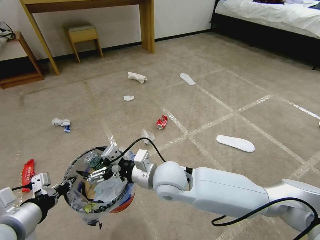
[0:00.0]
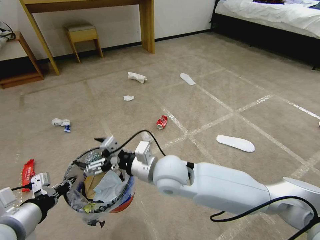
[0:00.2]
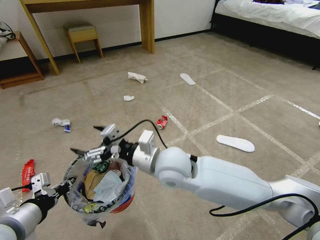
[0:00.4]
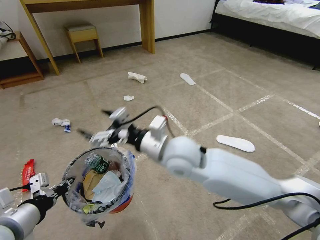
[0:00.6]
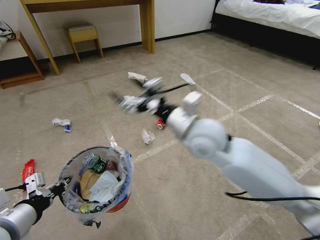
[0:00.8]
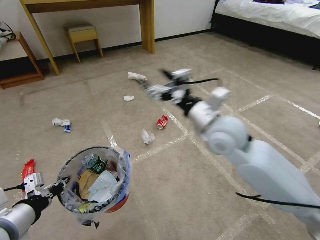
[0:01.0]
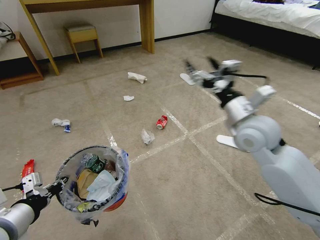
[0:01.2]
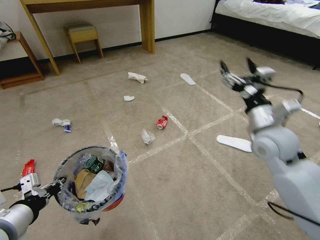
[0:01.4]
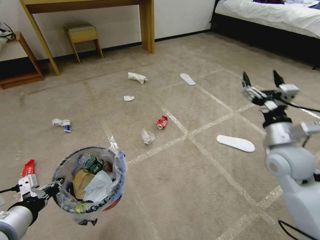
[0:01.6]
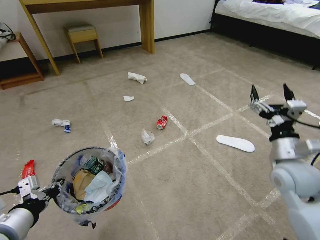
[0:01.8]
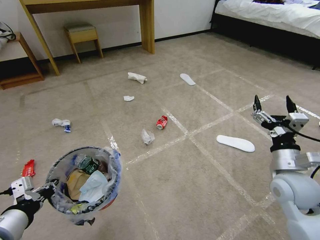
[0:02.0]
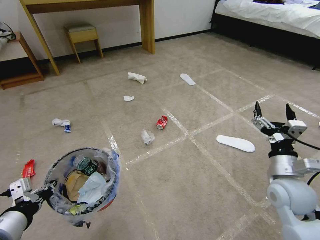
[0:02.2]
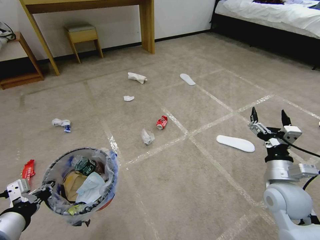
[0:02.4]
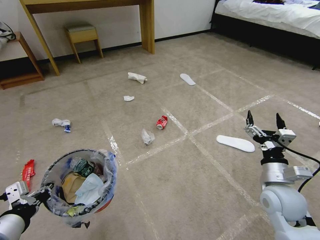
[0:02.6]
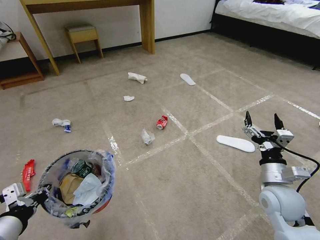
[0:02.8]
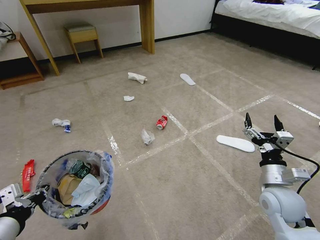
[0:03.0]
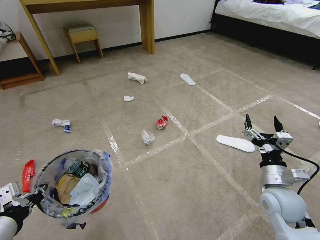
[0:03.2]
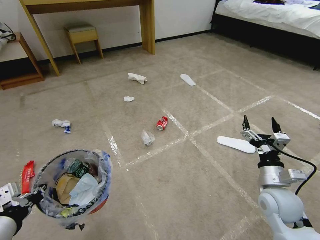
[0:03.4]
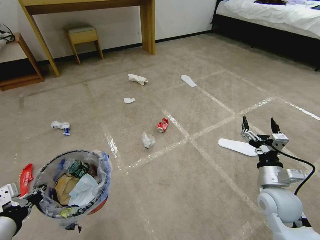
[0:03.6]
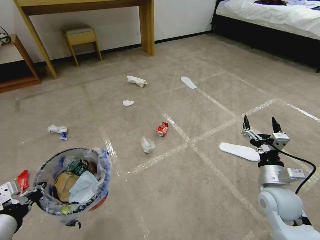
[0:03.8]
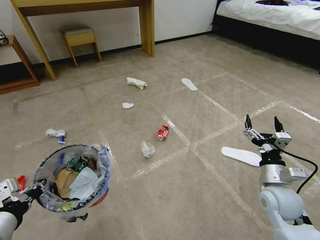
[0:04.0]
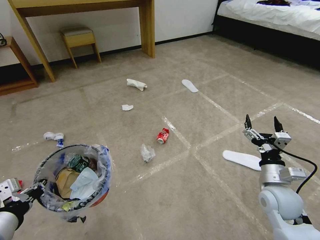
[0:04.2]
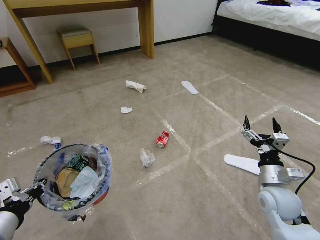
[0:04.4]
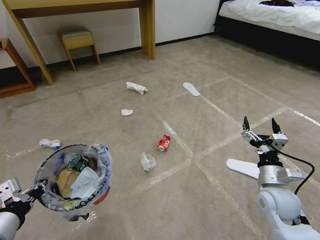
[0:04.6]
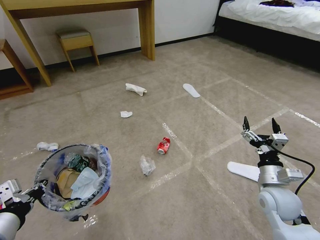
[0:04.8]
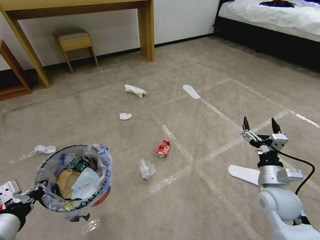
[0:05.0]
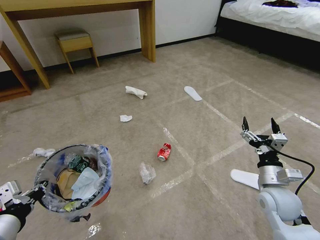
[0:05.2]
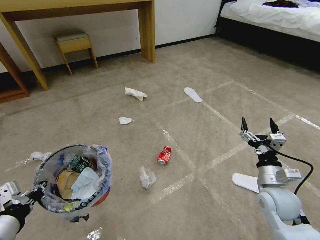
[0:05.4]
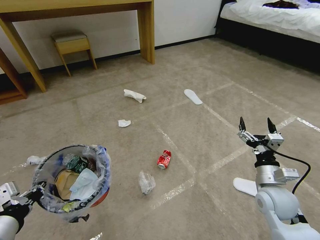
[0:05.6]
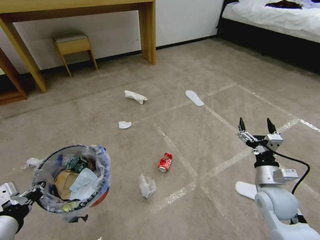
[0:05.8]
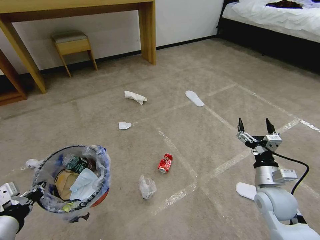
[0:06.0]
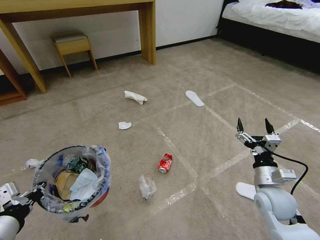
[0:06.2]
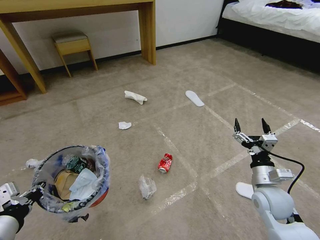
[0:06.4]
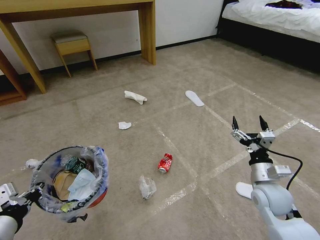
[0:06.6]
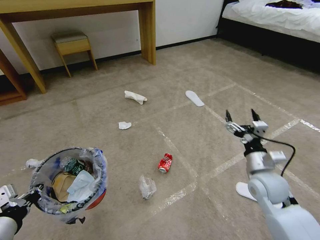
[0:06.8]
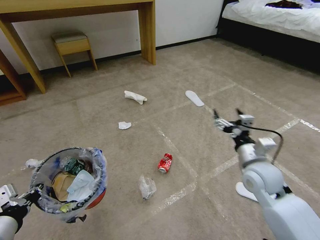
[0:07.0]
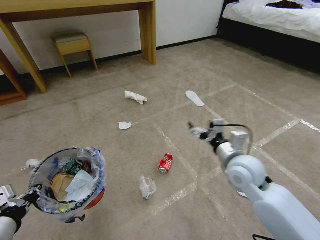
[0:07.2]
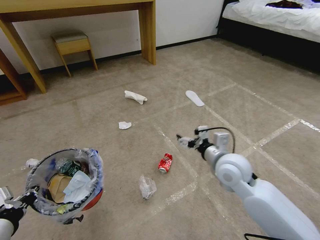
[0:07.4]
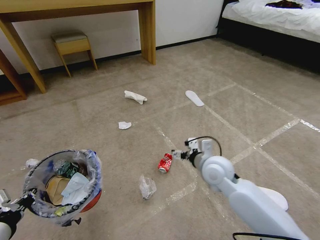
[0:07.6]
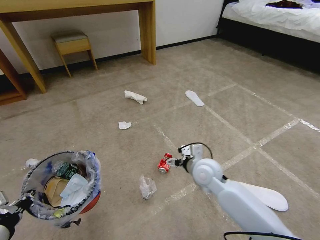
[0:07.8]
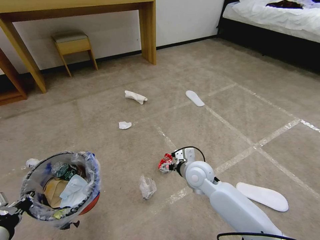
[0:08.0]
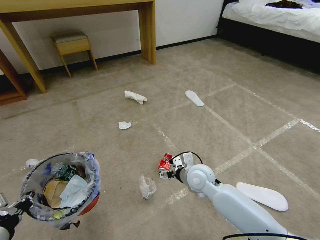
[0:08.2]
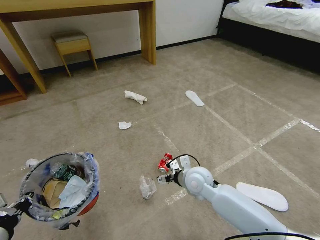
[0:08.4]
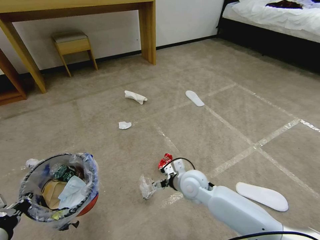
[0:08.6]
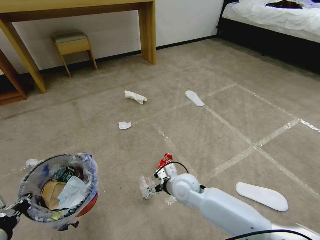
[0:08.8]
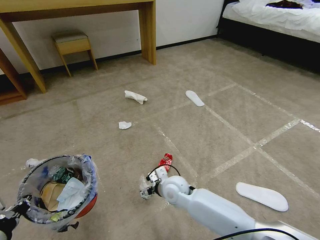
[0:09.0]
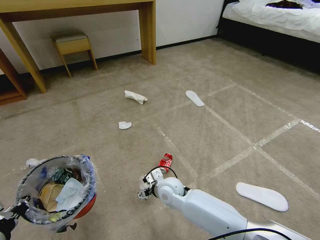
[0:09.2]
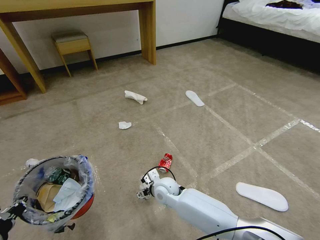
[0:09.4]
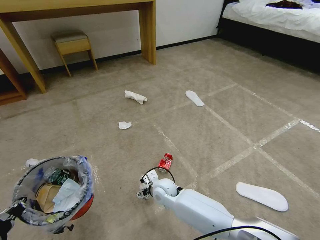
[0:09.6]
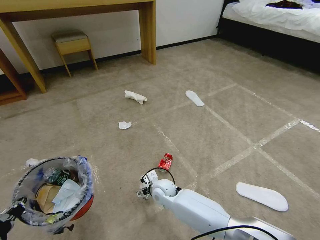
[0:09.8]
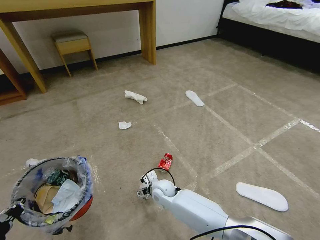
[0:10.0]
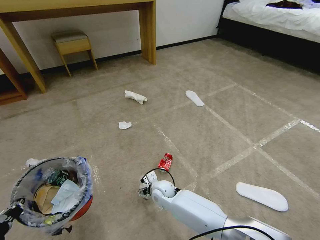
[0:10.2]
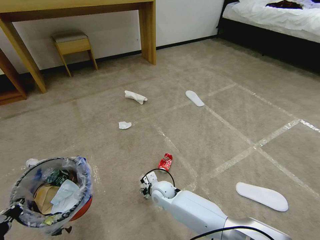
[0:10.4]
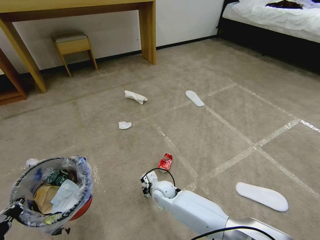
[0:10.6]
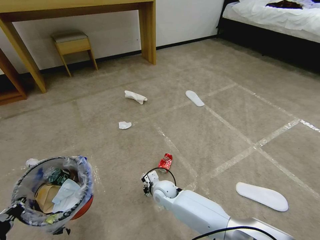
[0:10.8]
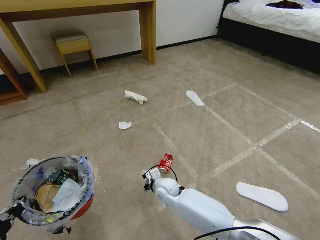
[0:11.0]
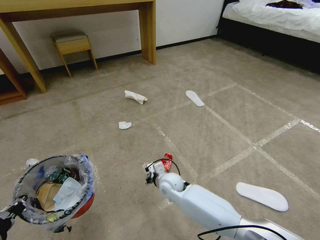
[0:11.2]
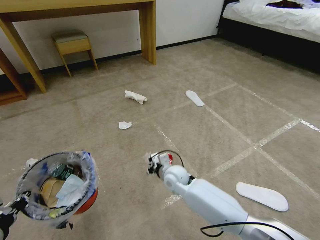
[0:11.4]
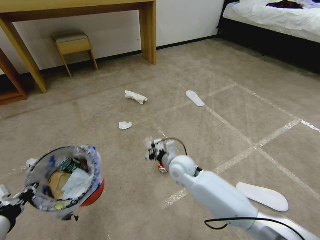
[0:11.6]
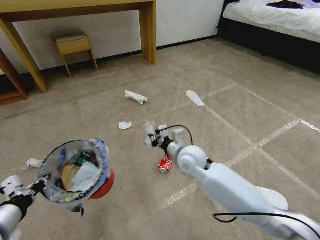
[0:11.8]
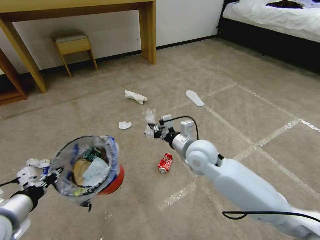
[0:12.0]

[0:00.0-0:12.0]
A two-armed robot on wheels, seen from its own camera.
Task of the whole recording: Pick up the trash bin and place the garbage on the floor into it.
0:00.0 to 0:01.6: The right gripper moves to the right, approximately 30 cm.
0:01.6 to 0:03.0: The right gripper heads downward and backward, covering roughly 15 cm.
0:06.0 to 0:07.6: The right gripper is displaced to the left and forward by about 15 cm.
0:07.6 to 0:09.0: The right gripper heads to the left and downward, covering about 20 cm.
0:09.0 to 0:10.4: The right gripper moves downward, about 10 cm, and closes its fingers.
0:10.4 to 0:12.0: The left gripper is displaced forward by roughly 10 cm; the right gripper moves upward and to the right, roughly 30 cm, and closes up.

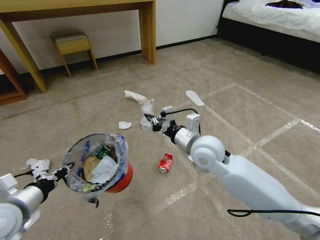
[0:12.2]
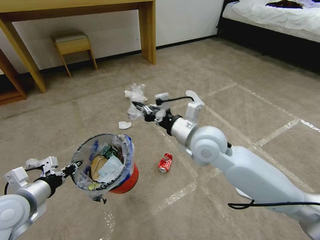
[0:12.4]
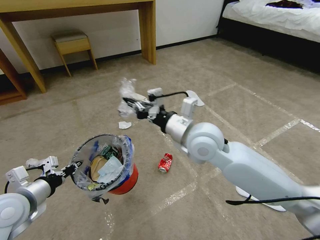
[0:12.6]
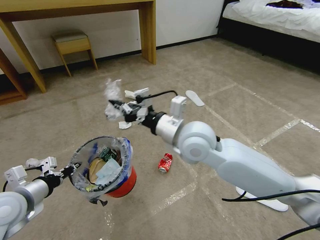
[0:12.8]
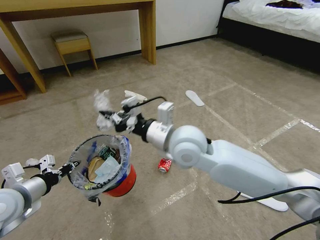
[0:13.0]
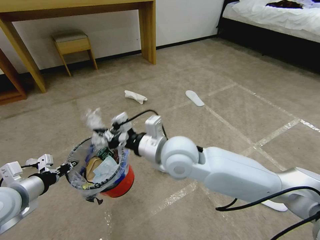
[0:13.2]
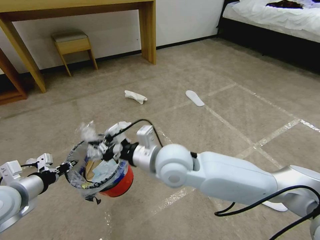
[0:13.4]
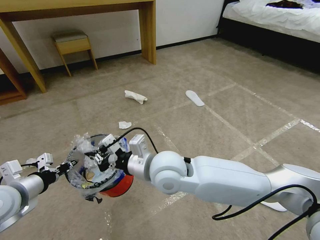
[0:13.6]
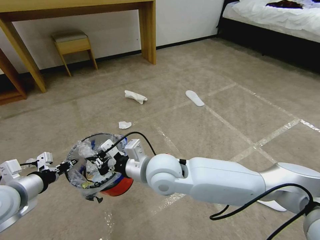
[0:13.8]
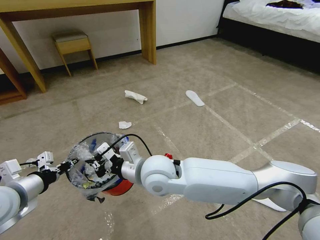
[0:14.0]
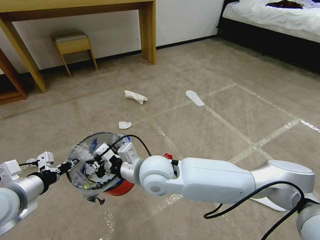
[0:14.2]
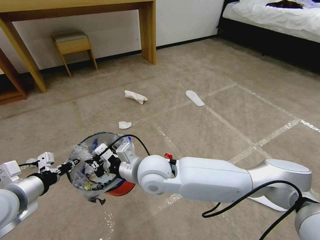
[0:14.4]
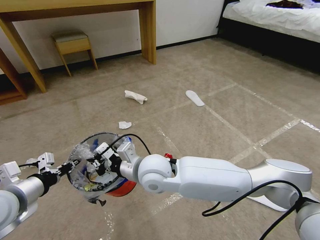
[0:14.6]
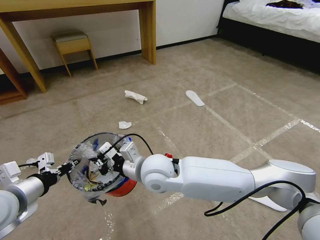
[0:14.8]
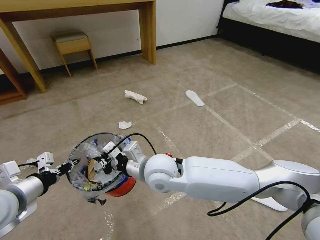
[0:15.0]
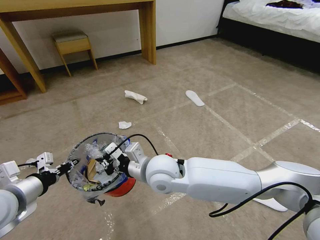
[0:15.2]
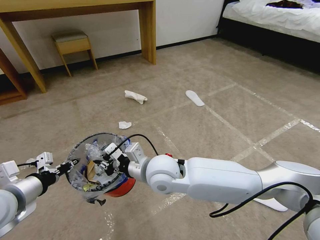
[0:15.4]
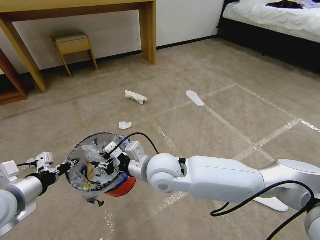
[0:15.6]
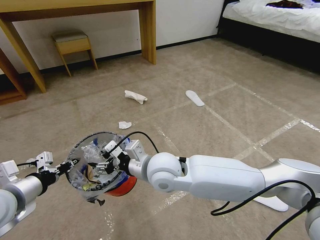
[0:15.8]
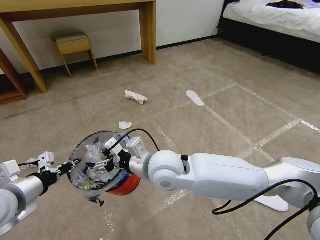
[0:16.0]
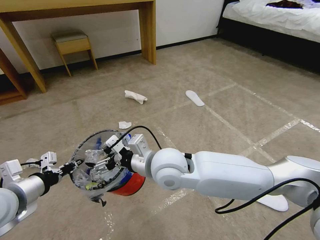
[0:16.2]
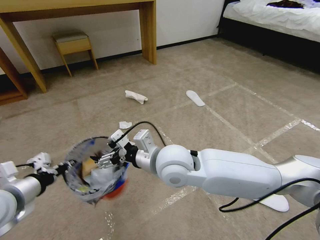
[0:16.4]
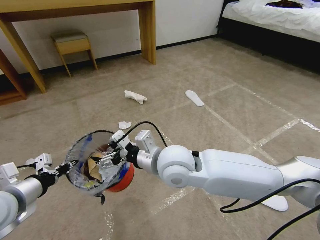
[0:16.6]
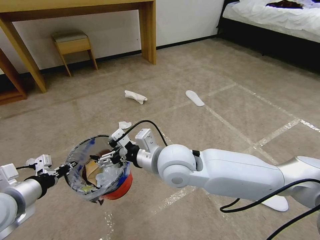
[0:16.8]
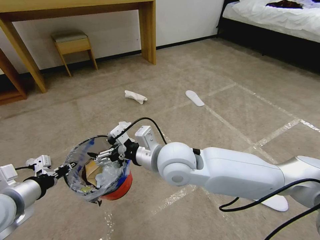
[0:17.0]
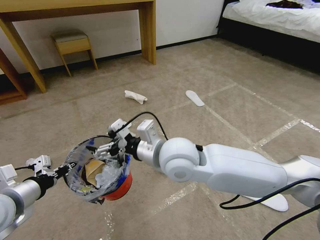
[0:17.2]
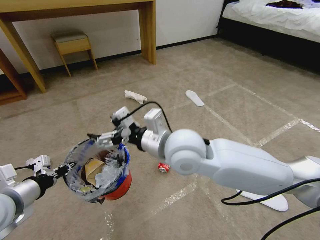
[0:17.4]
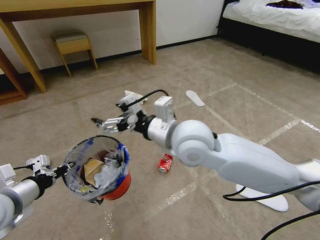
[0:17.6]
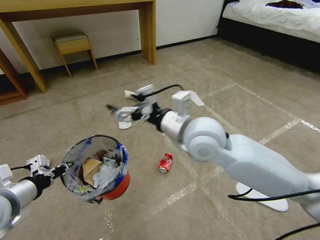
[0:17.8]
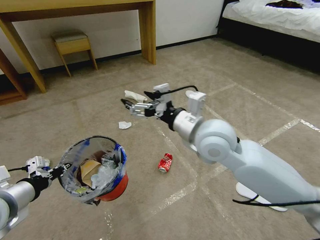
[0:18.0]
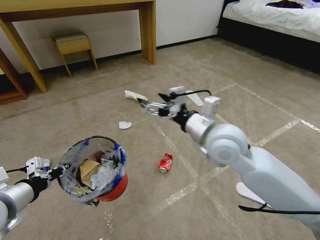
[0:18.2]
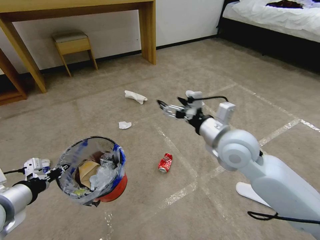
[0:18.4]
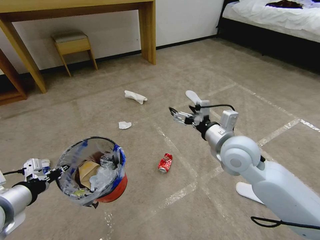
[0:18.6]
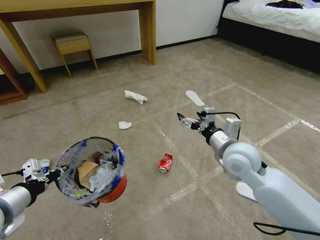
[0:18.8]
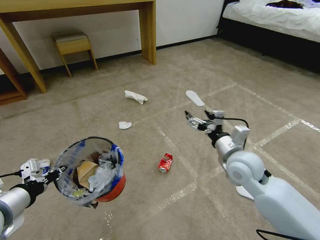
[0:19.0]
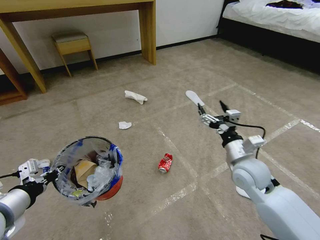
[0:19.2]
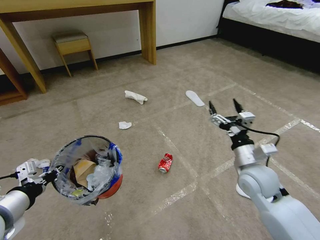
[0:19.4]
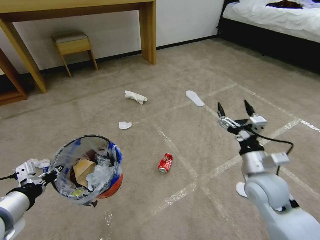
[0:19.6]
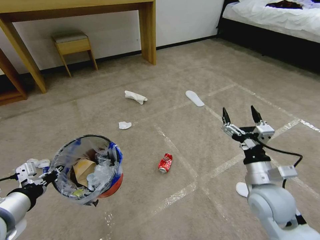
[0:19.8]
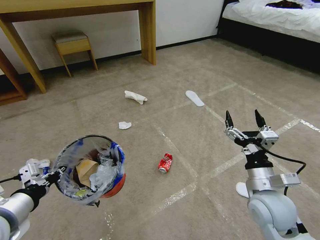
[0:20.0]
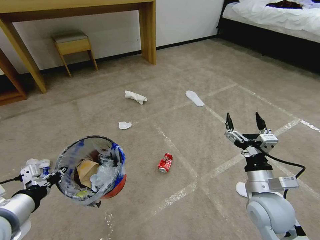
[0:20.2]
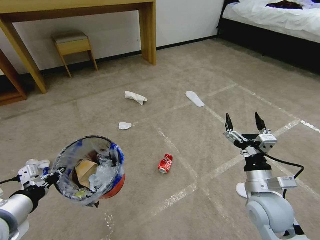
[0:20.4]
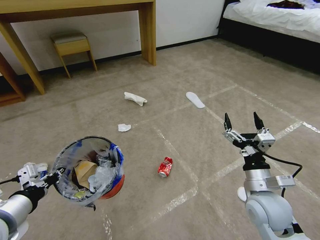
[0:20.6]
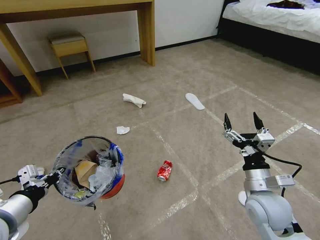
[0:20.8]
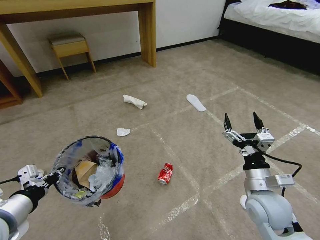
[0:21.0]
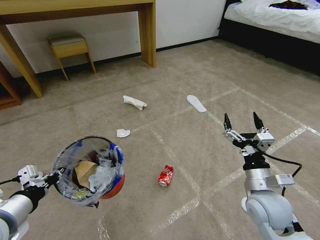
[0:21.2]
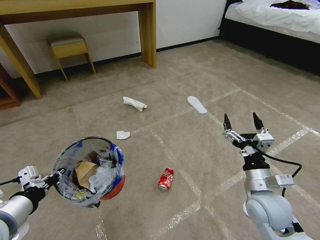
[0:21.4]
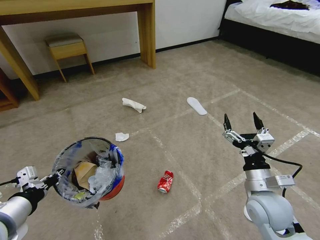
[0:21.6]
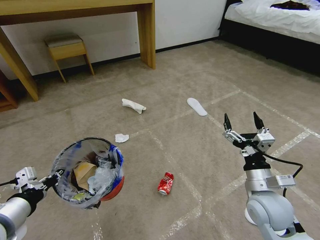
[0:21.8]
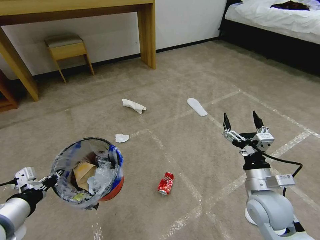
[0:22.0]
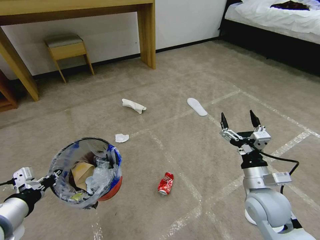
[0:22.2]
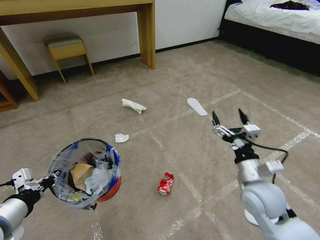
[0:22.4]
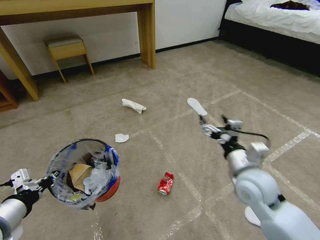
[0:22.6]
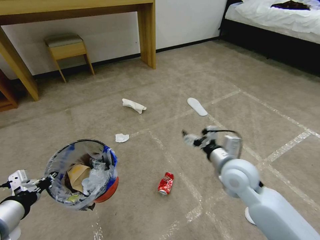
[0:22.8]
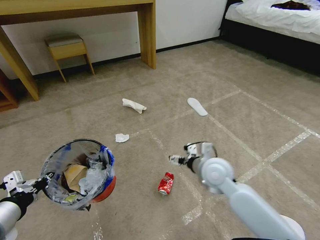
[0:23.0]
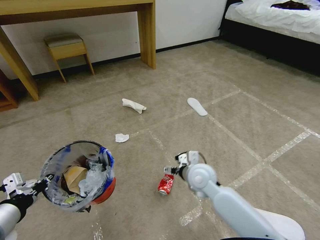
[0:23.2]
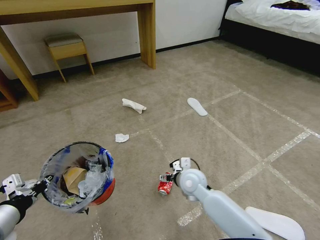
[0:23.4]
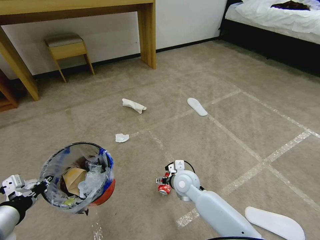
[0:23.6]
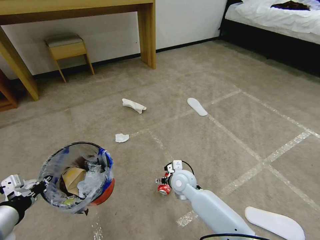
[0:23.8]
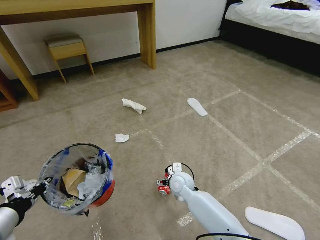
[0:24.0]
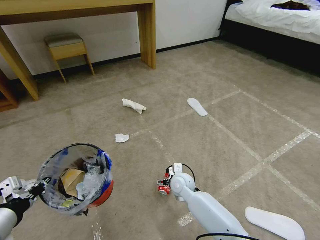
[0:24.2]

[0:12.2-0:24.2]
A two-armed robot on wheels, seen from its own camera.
Task of the whole recording: Pick up the trash bin and place the garbage on the floor into it.
0:12.2 to 0:13.8: The right gripper travels to the left and backward by approximately 15 cm.
0:13.8 to 0:15.2: There are only small adjustments of the grippers.
0:15.2 to 0:16.6: The right gripper goes about 5 cm upward, and opens.
0:16.6 to 0:18.2: The right gripper goes some 10 cm to the right.
0:18.2 to 0:19.8: The right gripper is displaced downward, to the right and backward by roughly 20 cm.
0:19.8 to 0:21.2: There are only small adjustments of the grippers.
0:21.2 to 0:22.6: The right gripper shifts by approximately 5 cm.
0:22.6 to 0:24.2: The right gripper heads downward, to the left and forward, covering some 25 cm.
